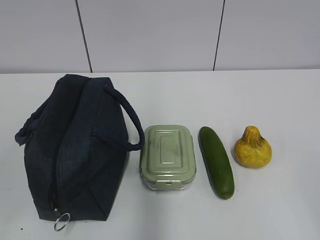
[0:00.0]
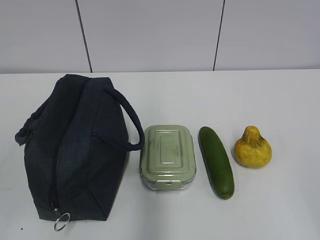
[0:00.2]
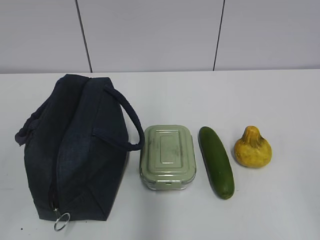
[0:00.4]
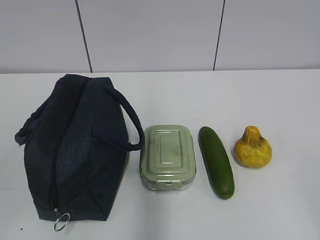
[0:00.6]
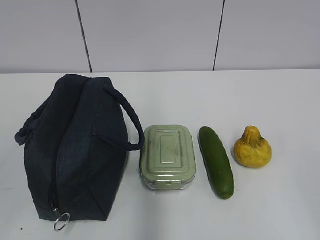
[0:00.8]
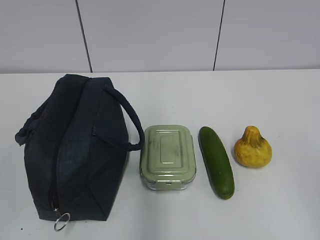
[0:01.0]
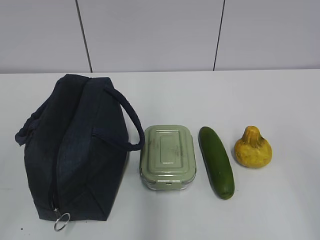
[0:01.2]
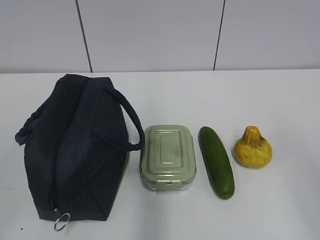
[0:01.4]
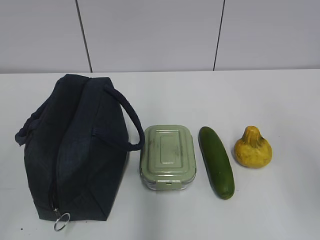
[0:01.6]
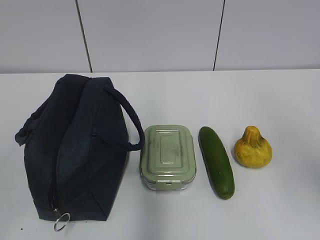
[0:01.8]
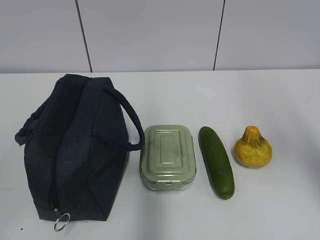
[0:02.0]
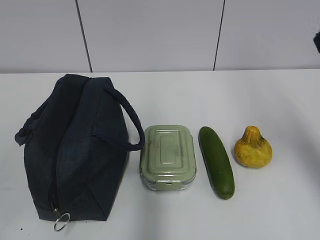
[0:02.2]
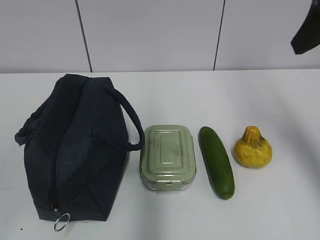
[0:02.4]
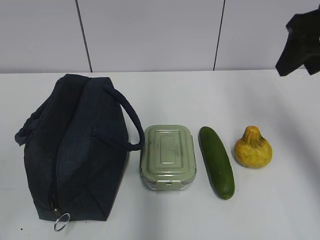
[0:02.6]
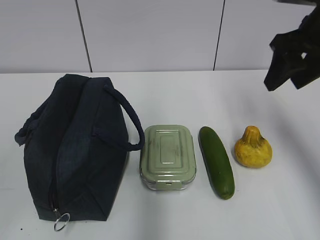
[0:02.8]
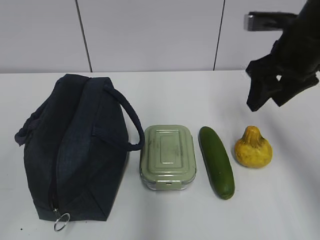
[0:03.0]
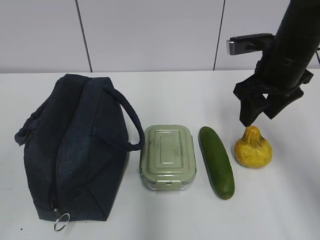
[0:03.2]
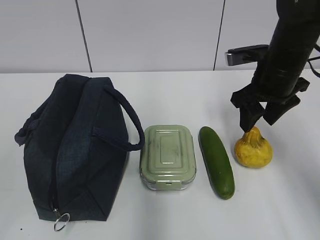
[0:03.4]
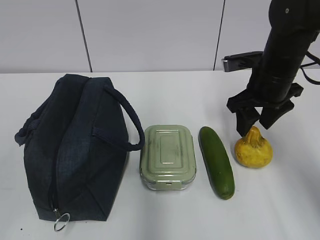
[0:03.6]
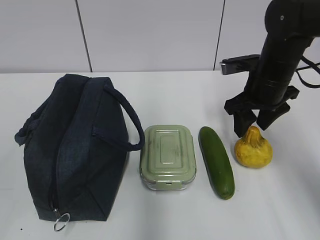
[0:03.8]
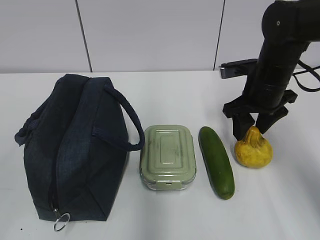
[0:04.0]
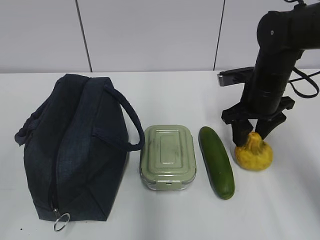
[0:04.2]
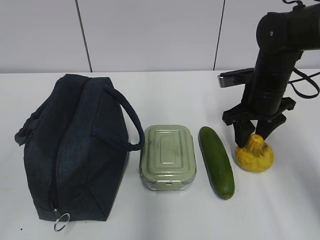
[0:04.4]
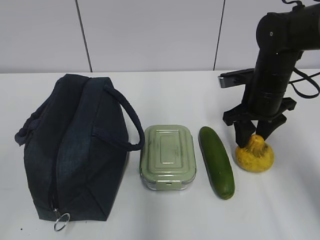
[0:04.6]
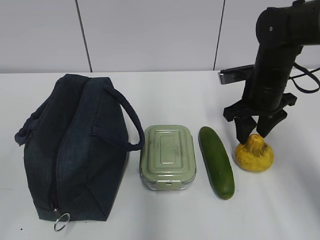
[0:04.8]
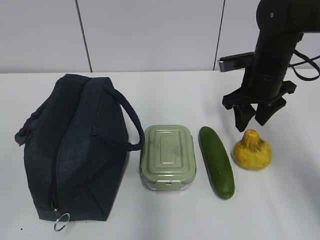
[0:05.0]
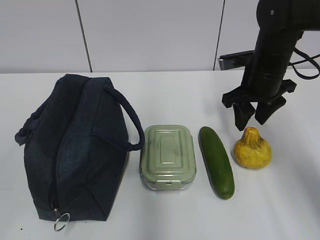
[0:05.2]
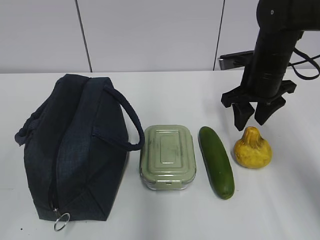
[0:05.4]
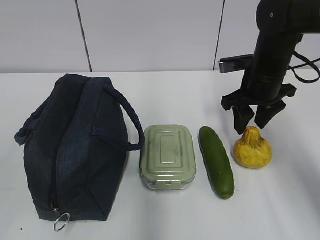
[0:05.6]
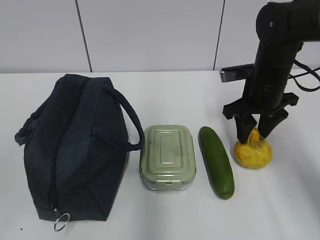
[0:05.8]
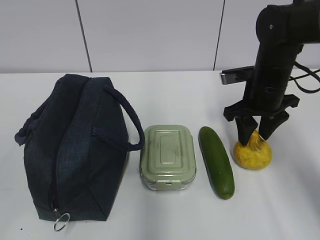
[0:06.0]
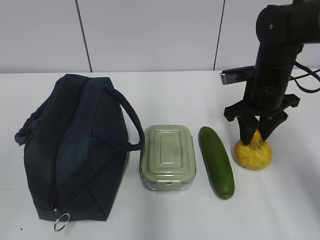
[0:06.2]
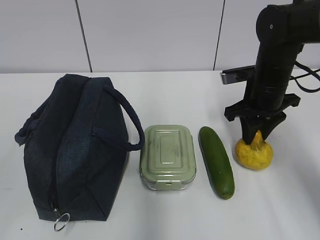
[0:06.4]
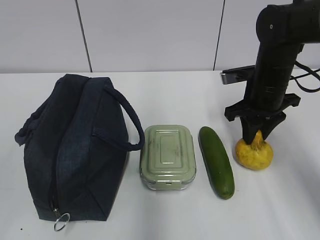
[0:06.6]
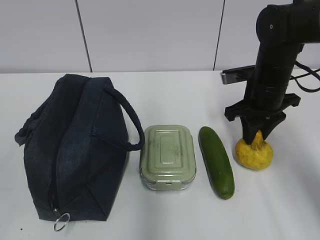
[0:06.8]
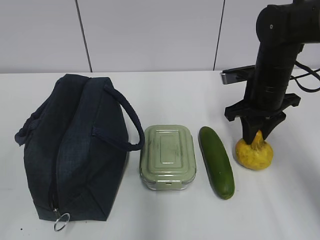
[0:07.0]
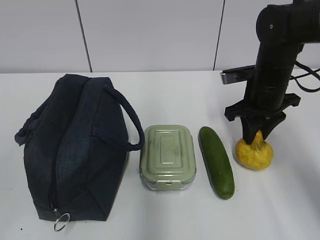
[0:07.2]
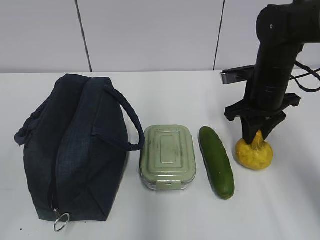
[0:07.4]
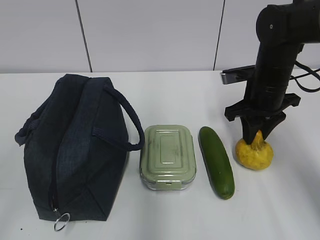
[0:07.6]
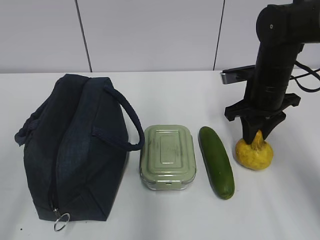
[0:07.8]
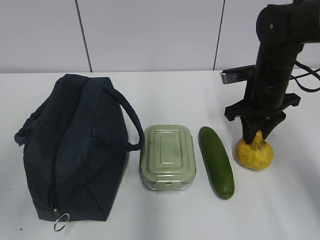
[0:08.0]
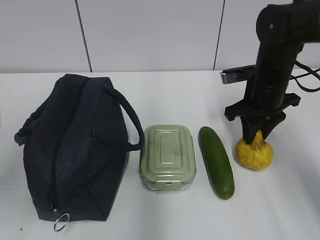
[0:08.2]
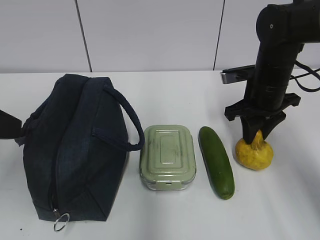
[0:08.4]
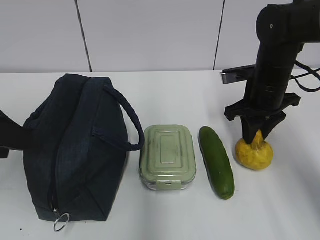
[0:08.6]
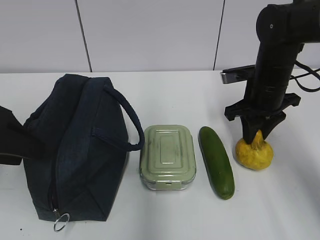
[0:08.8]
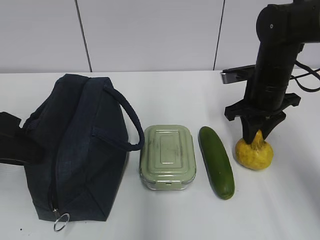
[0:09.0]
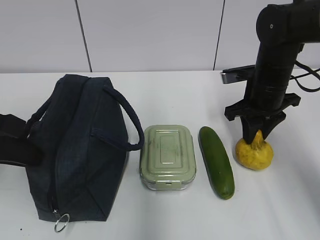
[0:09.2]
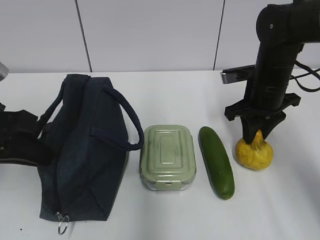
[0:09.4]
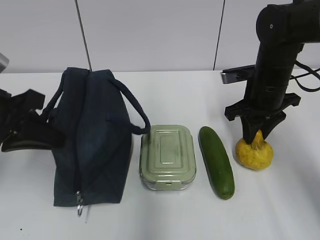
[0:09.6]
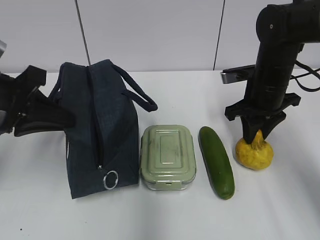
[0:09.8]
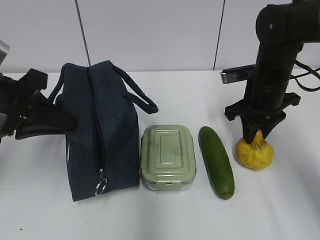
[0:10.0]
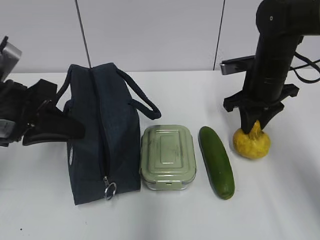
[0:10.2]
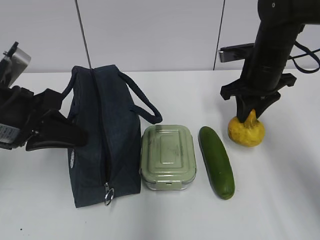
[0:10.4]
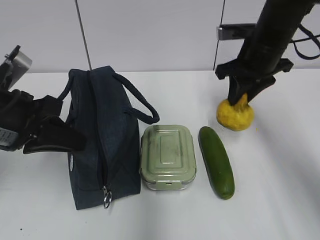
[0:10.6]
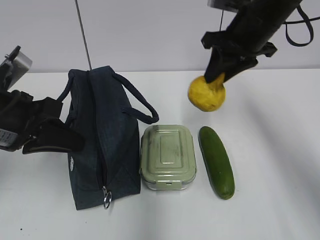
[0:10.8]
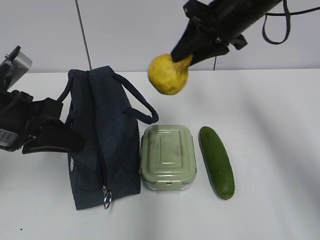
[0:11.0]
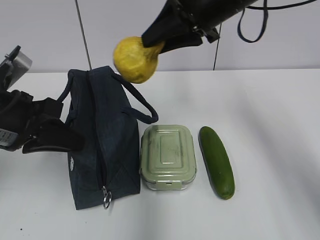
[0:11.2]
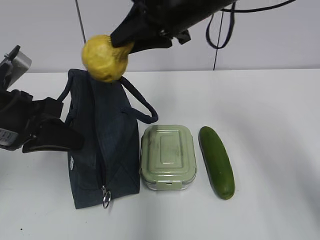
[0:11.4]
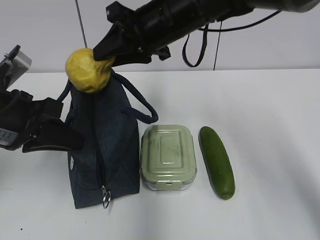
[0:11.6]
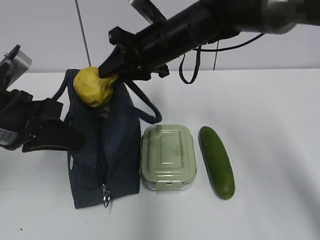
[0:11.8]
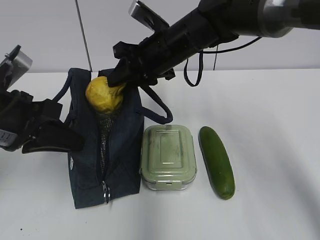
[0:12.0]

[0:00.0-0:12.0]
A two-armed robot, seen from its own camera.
Step, 0:00.0 to 0:09.2: Grab the lunch bag with your left hand.
0:01.6 to 0:03.0: The right gripper moves forward, some 25 cm.
0:03.0 to 0:04.4: The right gripper goes approximately 10 cm downward.
0:04.4 to 0:07.6: The grippers stay close to where they were, moving slightly.
0:07.6 to 0:09.0: The left gripper is displaced forward by roughly 20 cm, and opens, then closes again.
0:09.0 to 0:10.4: The left gripper moves approximately 5 cm, and closes.
0:10.4 to 0:12.0: The right gripper shifts about 15 cm to the left.

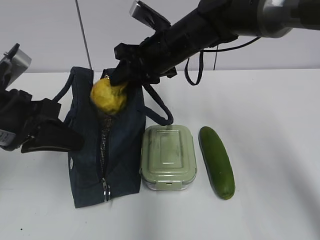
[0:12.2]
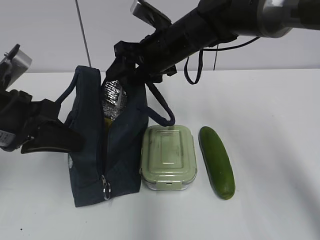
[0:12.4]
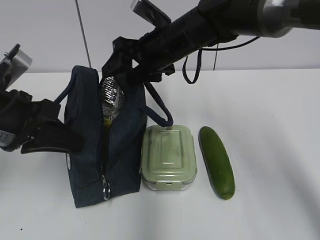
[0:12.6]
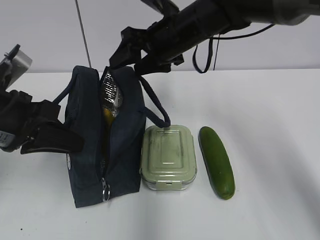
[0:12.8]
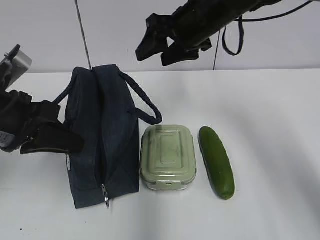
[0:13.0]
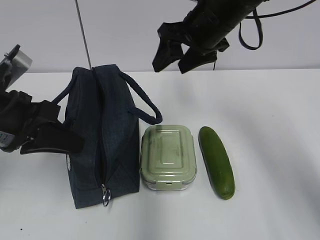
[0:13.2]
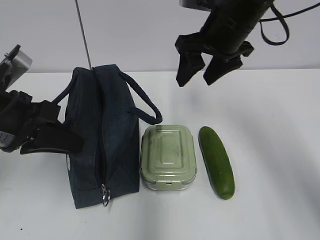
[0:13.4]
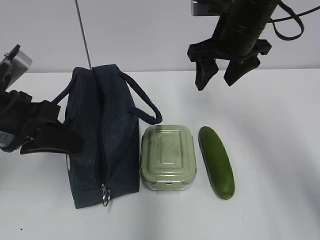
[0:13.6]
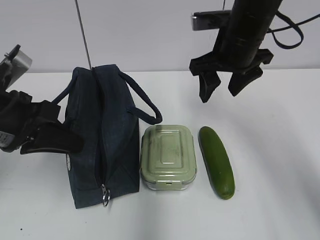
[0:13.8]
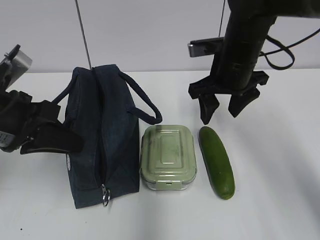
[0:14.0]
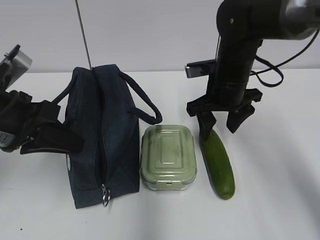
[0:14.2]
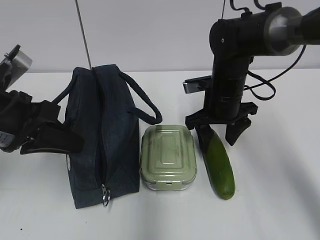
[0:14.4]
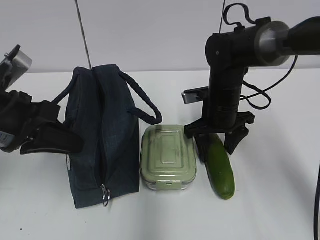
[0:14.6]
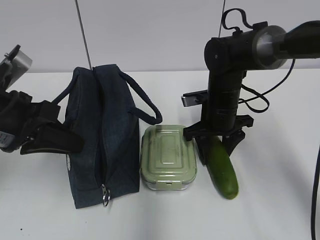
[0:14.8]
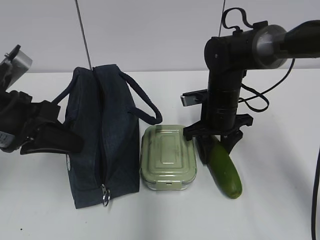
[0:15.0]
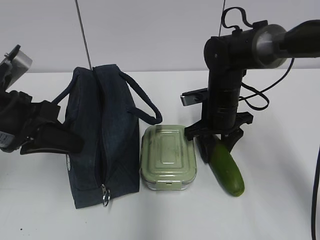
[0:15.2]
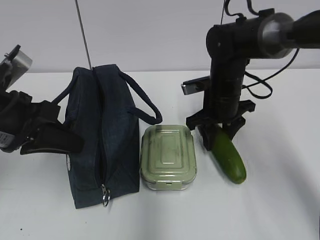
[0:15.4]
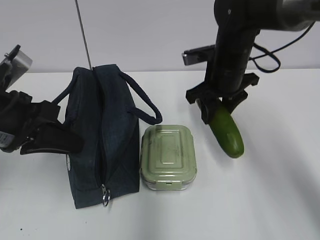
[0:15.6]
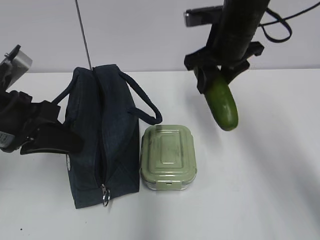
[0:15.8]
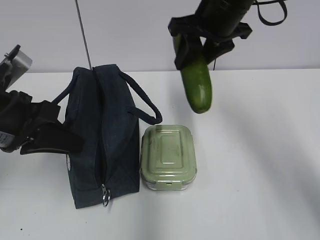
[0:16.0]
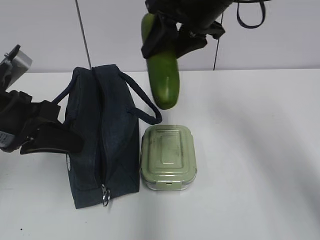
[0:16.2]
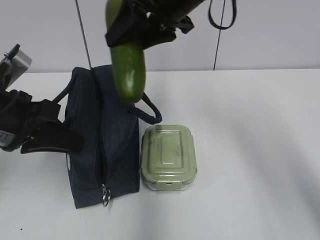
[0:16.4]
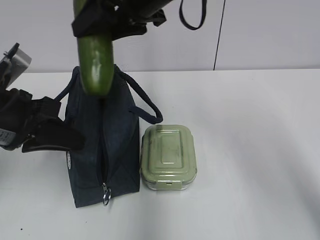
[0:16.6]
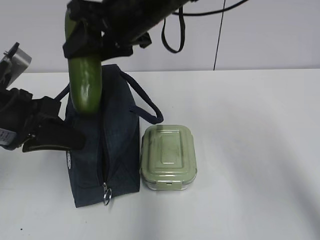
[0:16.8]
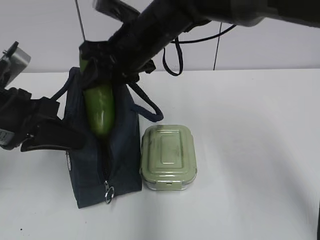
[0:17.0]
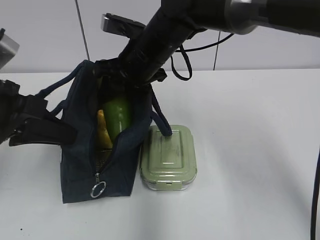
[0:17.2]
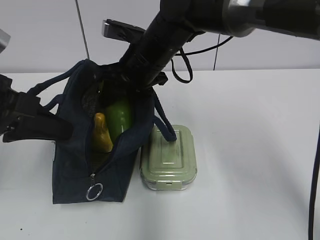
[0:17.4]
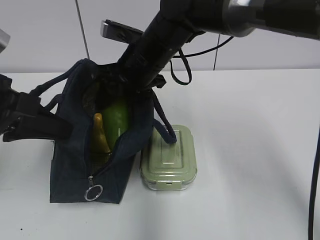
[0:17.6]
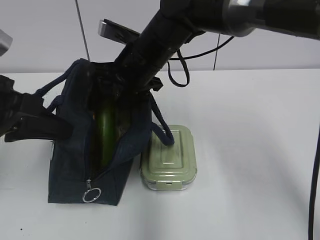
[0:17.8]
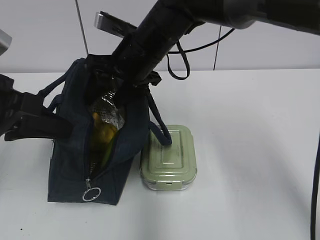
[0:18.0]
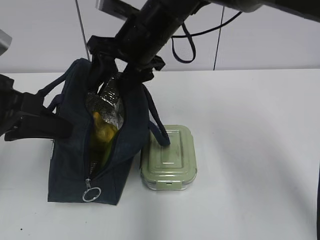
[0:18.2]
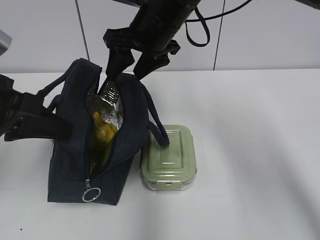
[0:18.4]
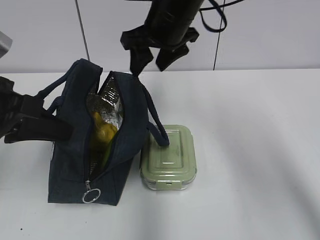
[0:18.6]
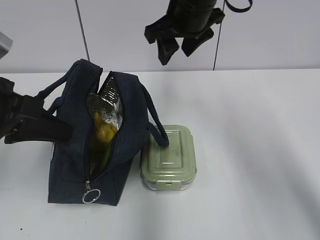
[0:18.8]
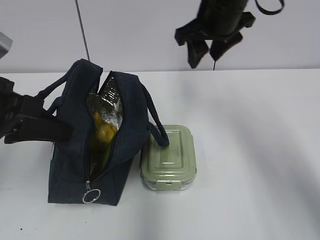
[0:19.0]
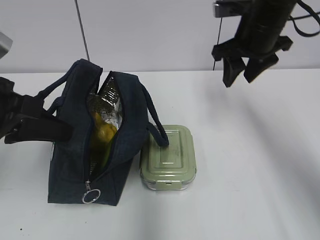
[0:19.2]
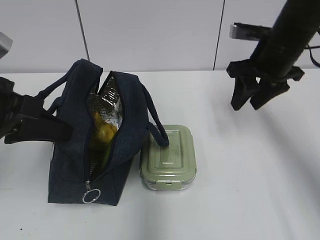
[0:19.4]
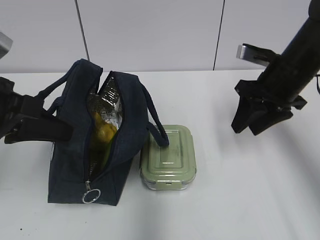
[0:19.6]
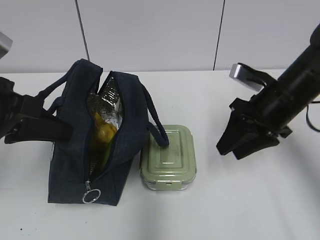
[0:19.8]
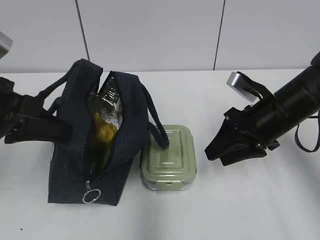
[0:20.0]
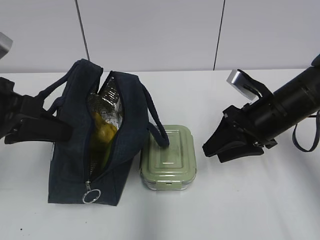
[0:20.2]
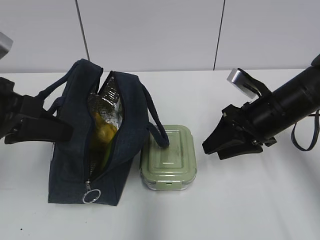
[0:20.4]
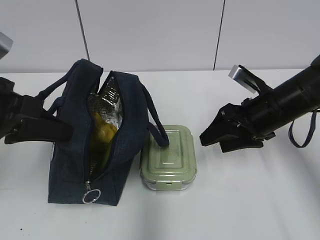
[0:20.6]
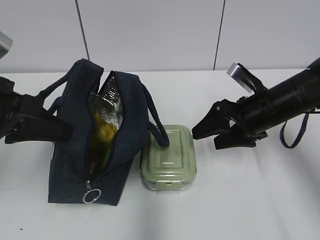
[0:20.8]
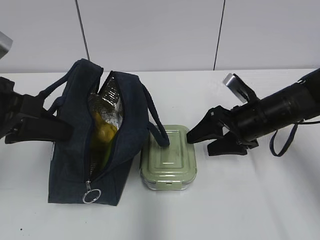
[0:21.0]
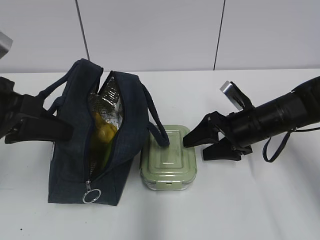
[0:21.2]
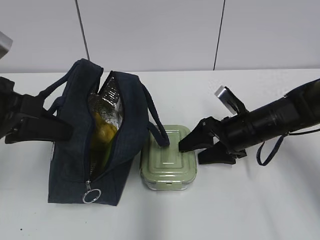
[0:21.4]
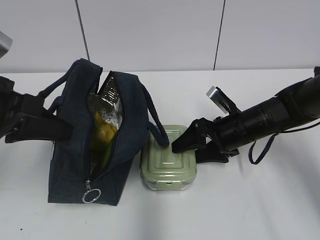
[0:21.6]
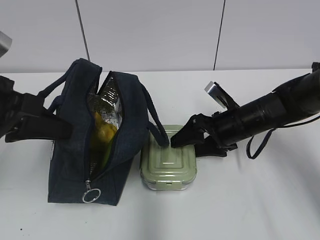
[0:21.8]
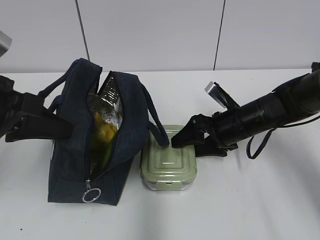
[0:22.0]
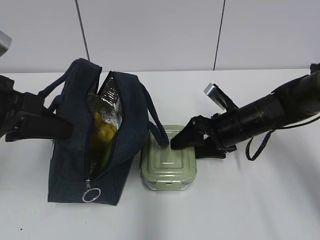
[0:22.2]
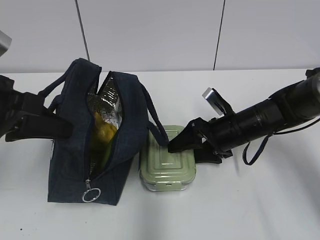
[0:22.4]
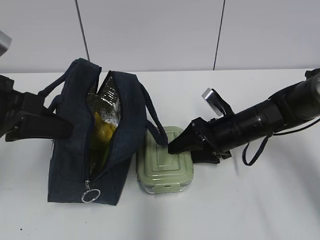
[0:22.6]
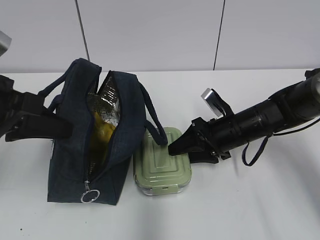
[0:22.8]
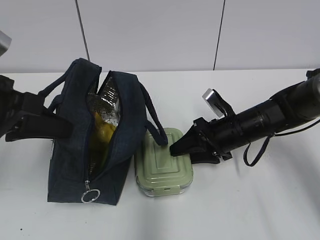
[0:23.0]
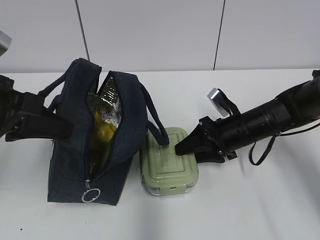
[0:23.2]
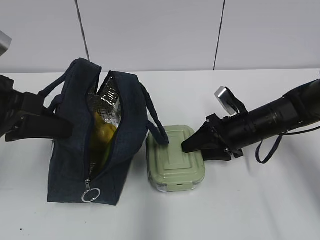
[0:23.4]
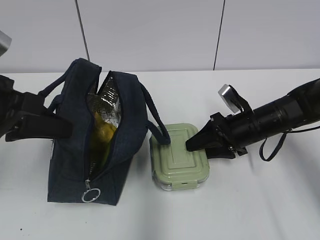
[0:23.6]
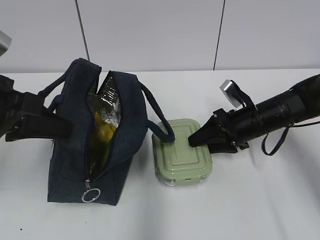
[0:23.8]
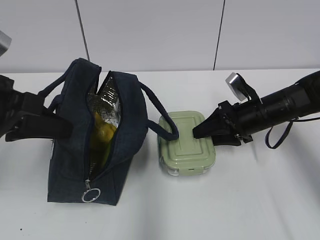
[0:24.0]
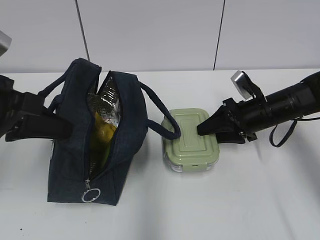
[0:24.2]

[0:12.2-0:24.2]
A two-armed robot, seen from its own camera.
Step, 0:12.4 to 0:15.2: Grab the cucumber with your right hand.
Step, 0:15.4 to 0:18.0: Place it into the bag with your right hand.
0:12.2 to 0:13.8: The right gripper moves to the right, about 10 cm, and opens.
0:13.8 to 0:15.2: The right gripper travels downward by approximately 15 cm.
0:15.2 to 0:16.6: The right gripper moves upward and to the left, approximately 25 cm.
0:16.6 to 0:18.2: The right gripper heads downward, covering some 5 cm.
0:18.2 to 0:19.8: The right gripper moves to the right and downward, about 20 cm.
0:19.8 to 0:21.2: The right gripper is displaced downward by roughly 10 cm, and opens.
0:21.2 to 0:22.6: The grippers stay close to where they were, moving slightly.
0:22.6 to 0:24.2: The right gripper is displaced to the right by about 5 cm.
